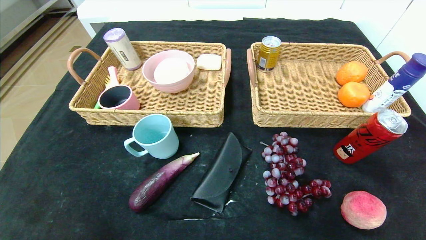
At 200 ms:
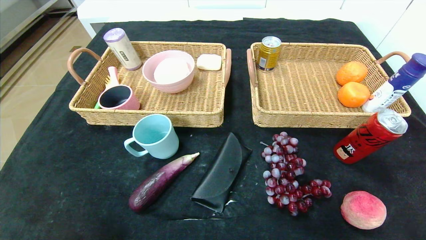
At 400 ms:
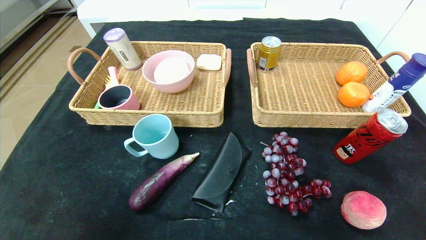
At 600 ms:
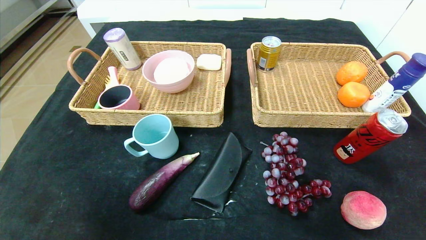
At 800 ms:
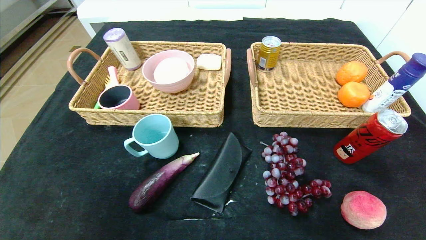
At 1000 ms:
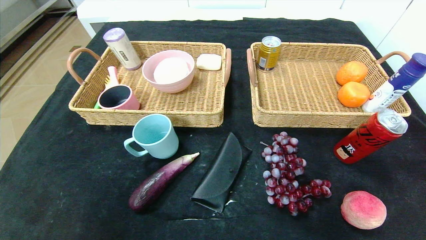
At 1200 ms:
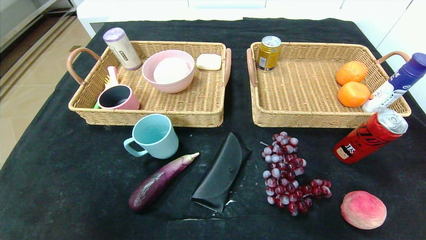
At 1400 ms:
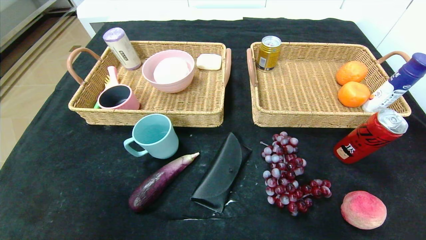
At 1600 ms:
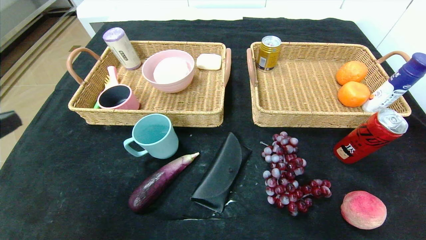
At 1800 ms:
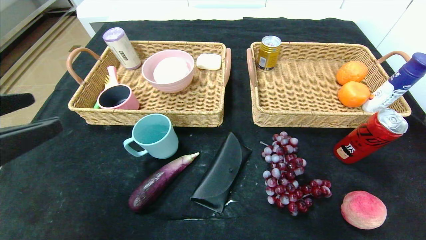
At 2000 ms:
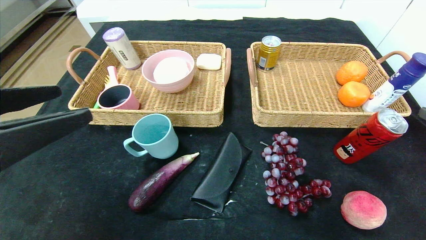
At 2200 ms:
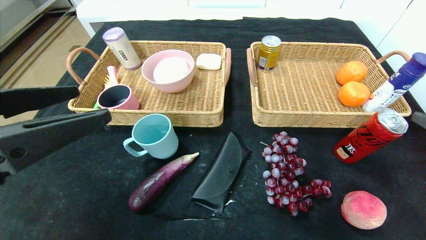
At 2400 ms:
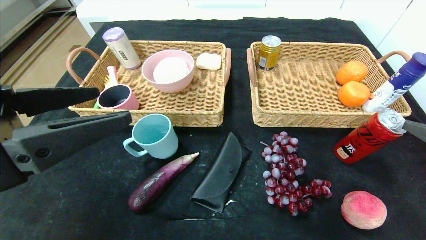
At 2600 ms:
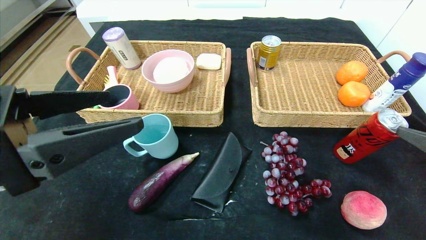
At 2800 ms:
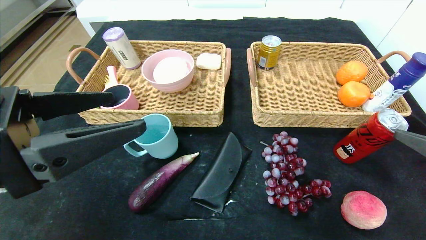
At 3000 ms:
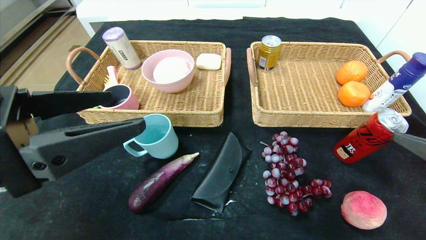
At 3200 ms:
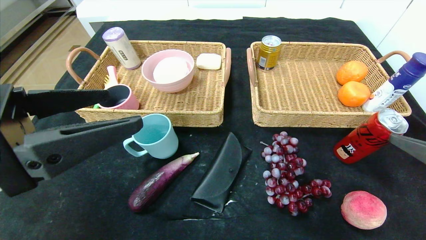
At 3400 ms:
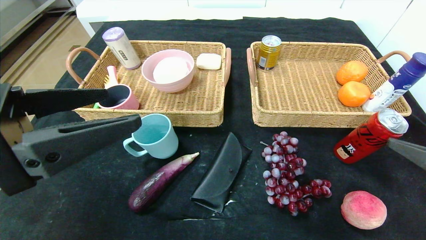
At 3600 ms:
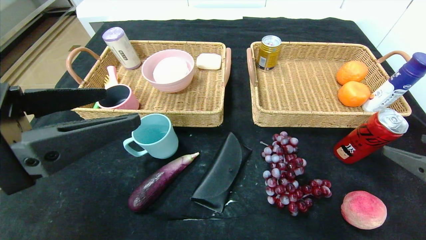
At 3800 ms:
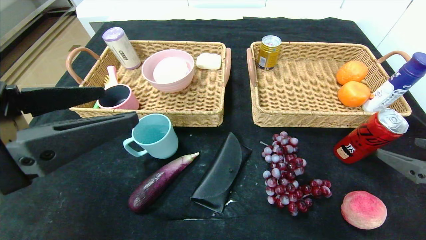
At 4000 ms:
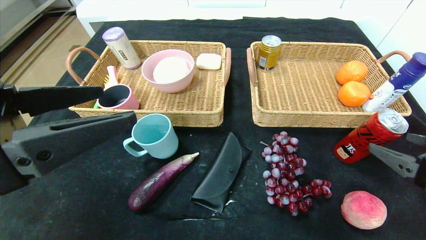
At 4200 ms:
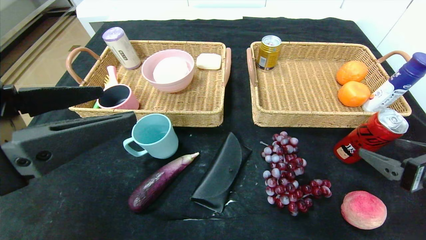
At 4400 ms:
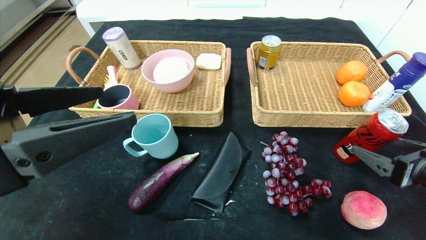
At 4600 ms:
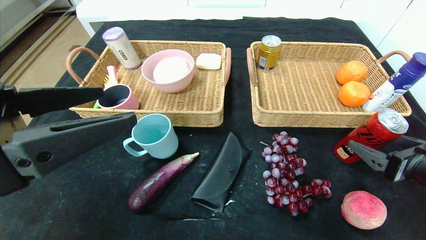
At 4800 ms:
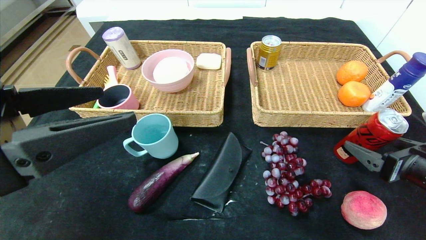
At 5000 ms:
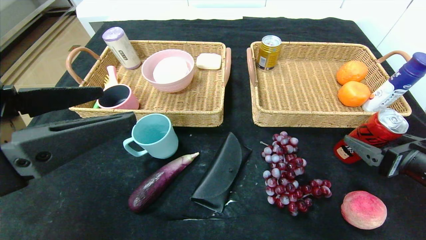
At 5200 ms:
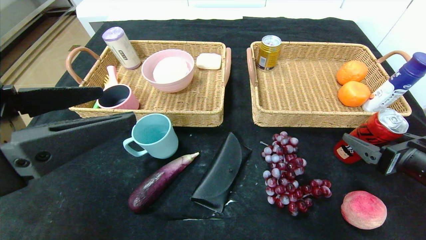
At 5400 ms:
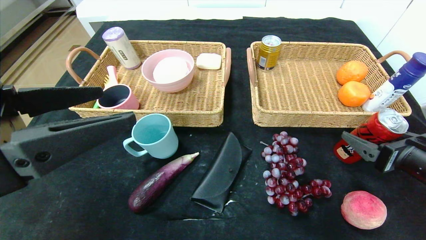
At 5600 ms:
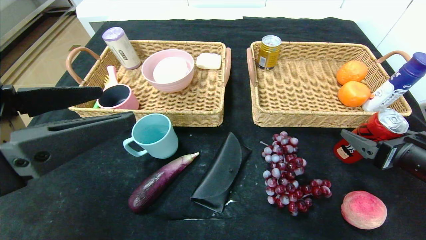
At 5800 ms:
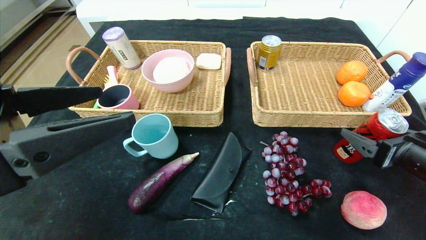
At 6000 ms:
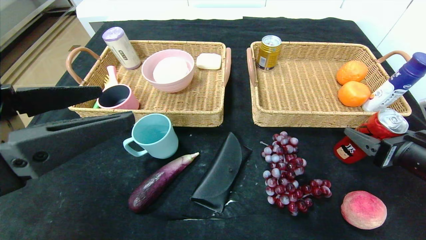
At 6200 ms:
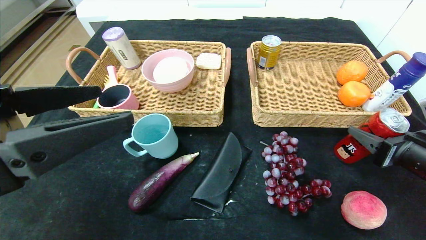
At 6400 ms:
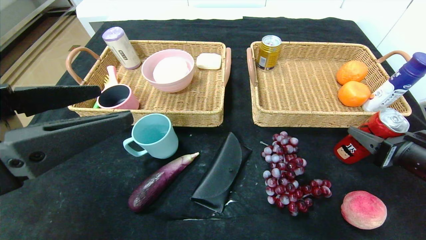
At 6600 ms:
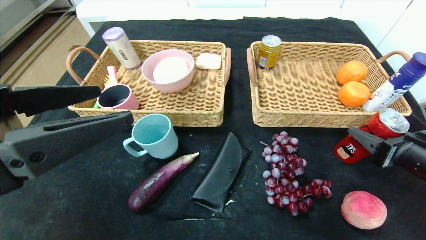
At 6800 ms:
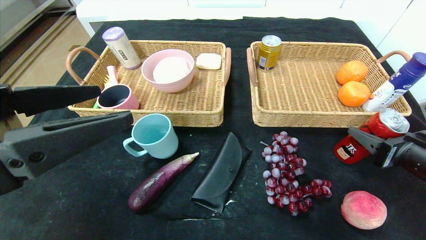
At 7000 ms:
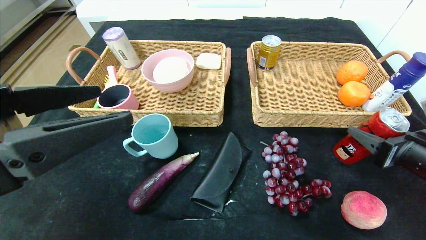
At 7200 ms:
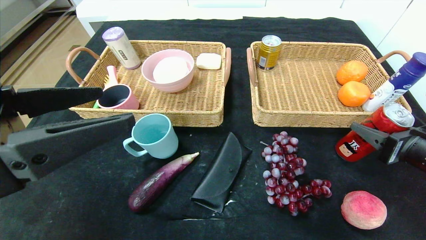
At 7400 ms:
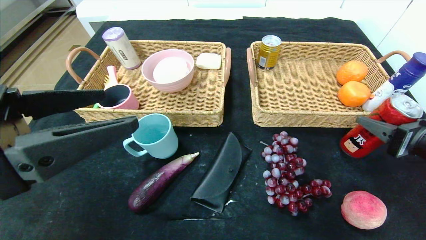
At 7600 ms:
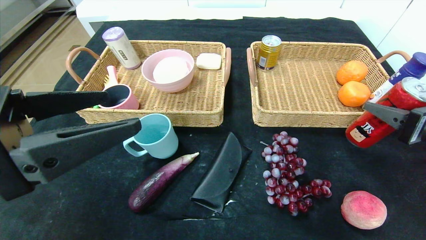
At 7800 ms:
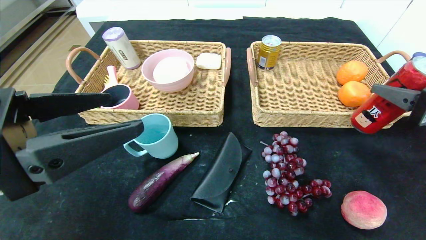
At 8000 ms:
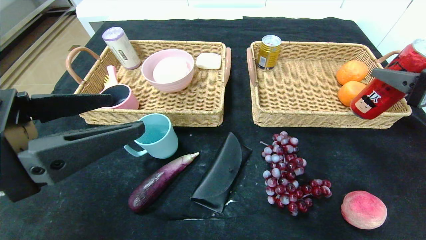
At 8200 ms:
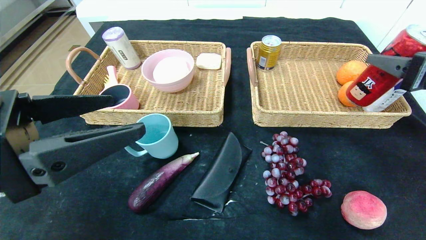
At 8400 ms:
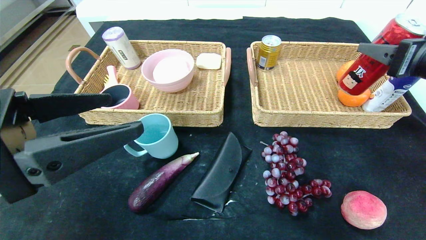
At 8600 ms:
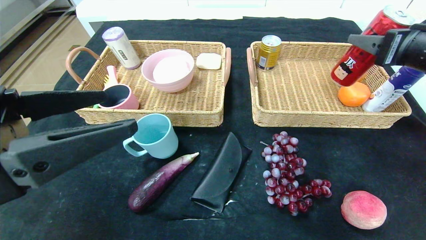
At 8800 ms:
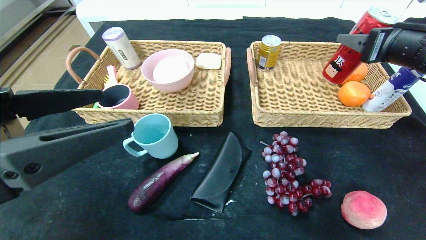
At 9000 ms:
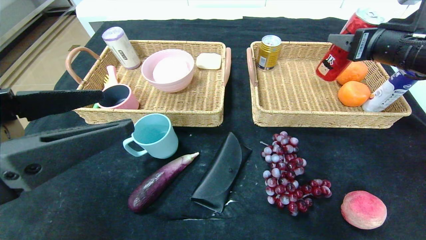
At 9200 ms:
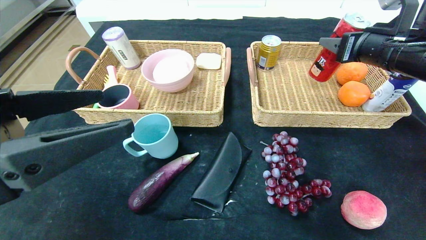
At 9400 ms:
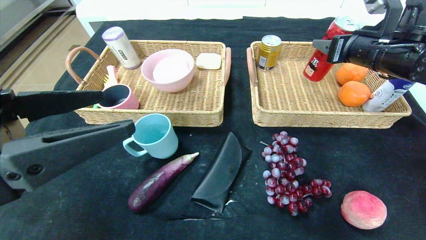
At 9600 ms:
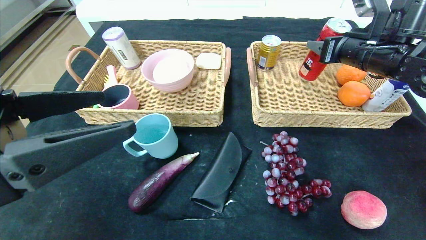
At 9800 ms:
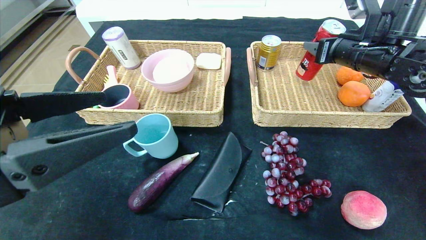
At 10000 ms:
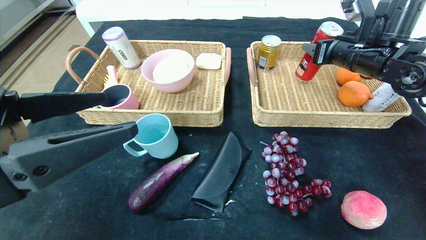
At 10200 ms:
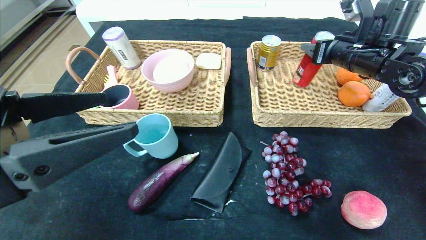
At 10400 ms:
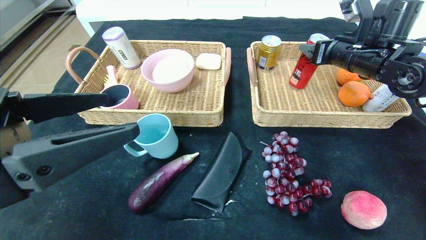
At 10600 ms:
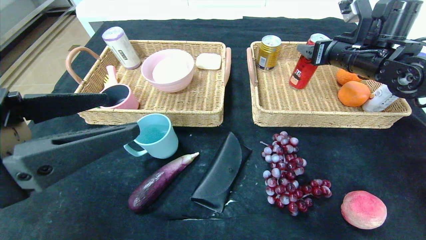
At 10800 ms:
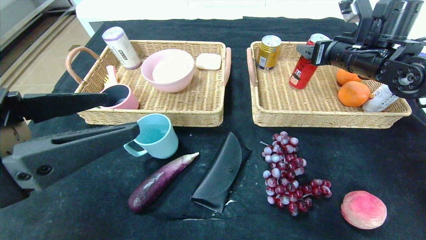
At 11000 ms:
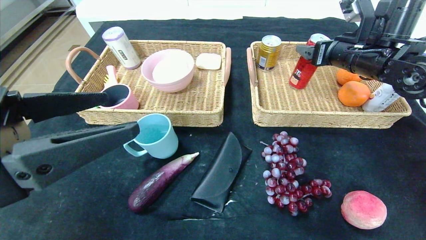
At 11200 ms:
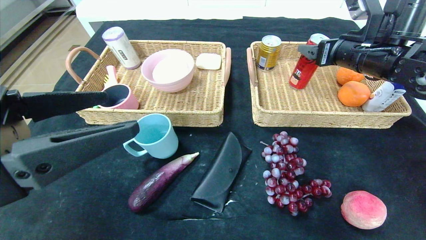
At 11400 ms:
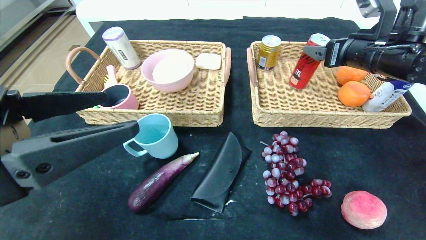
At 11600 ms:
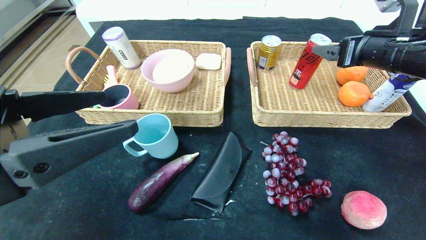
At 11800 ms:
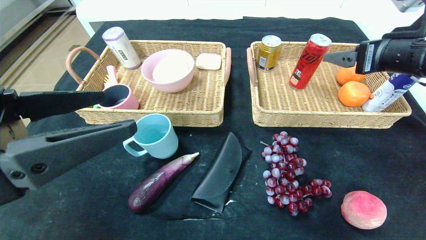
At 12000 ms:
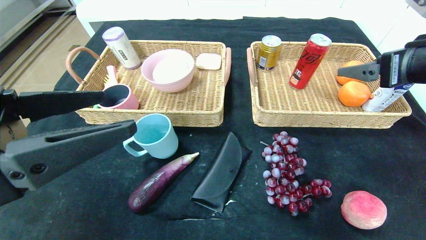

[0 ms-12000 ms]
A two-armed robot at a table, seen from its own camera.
Step, 0 ms to 10800 ms: Grasp the canned cola and put it in the right basket.
0 ms to 1600 ms: The right gripper is displaced upward and forward by approximately 25 cm; the left gripper moves upward, some 25 cm.
1600 ms to 3000 ms: The left gripper shifts roughly 10 cm forward and to the right.
3000 ms to 4400 ms: The right gripper travels downward and forward by some 10 cm.
4400 ms to 6000 ms: The grippers move only a little.
6000 ms to 7600 ms: The right gripper heads upward, covering approximately 5 cm.
7600 ms to 9000 ms: The right gripper is displaced forward and upward by roughly 15 cm.
9000 ms to 10400 ms: The right gripper is displaced forward by about 10 cm.
10400 ms to 12000 ms: The right gripper shifts approximately 15 cm backward.

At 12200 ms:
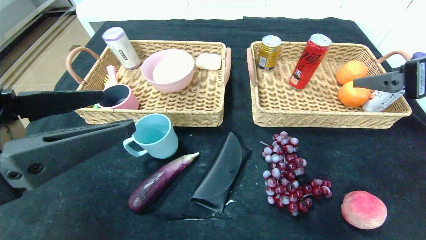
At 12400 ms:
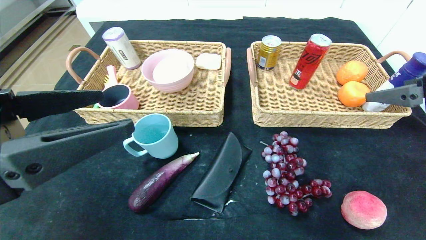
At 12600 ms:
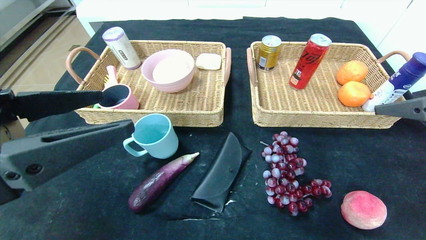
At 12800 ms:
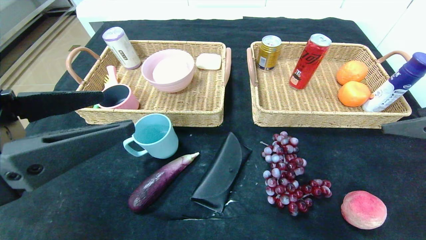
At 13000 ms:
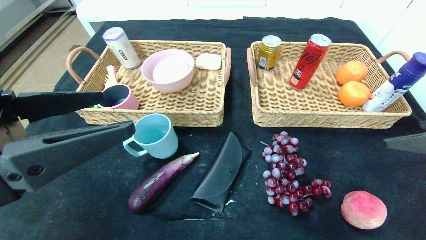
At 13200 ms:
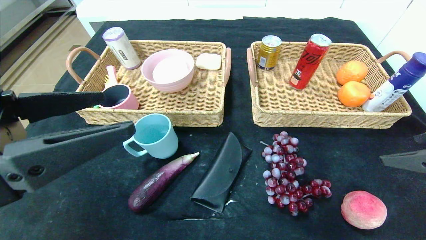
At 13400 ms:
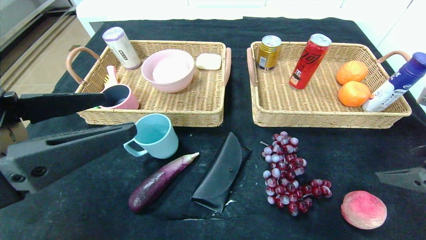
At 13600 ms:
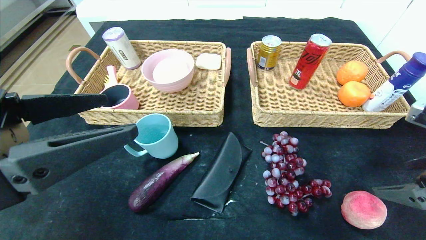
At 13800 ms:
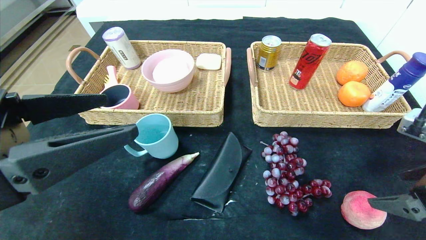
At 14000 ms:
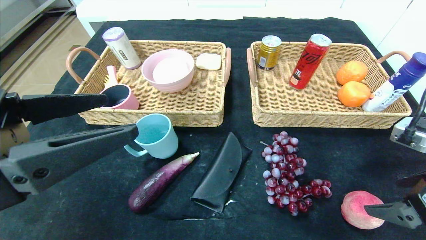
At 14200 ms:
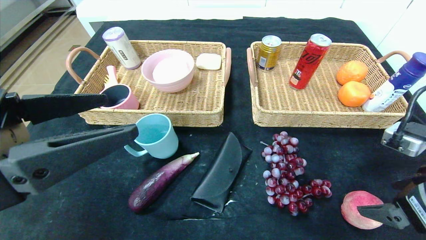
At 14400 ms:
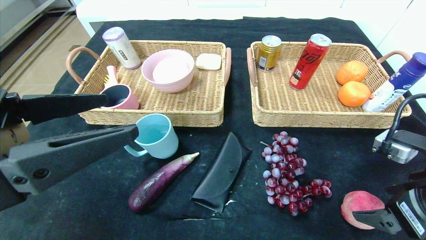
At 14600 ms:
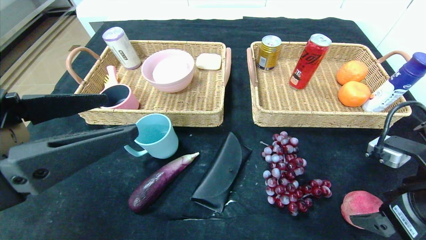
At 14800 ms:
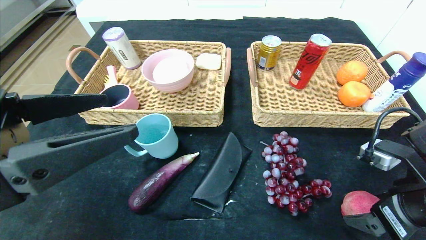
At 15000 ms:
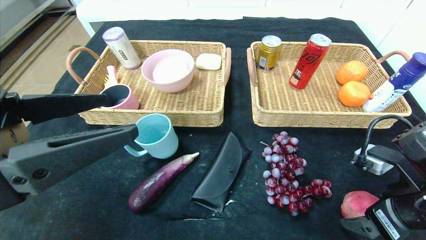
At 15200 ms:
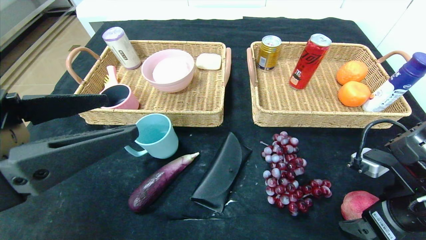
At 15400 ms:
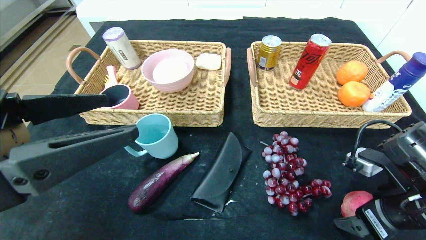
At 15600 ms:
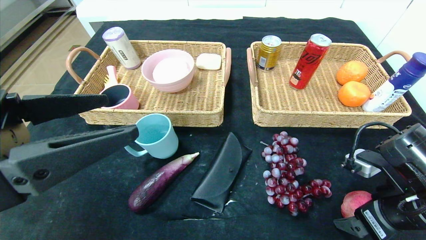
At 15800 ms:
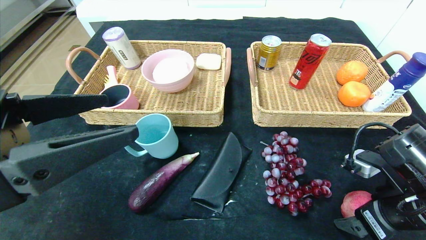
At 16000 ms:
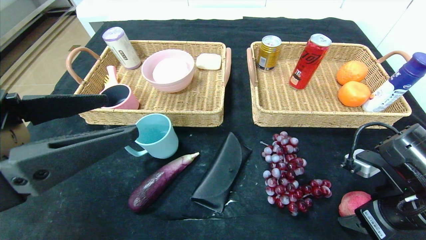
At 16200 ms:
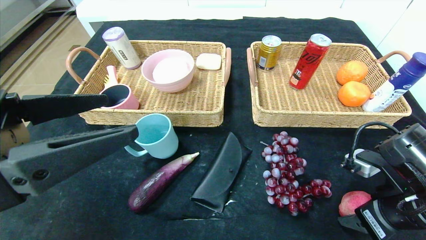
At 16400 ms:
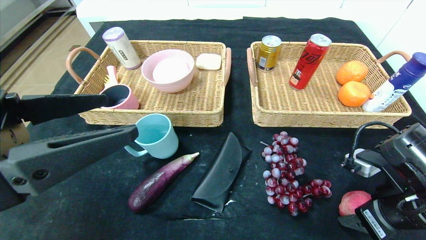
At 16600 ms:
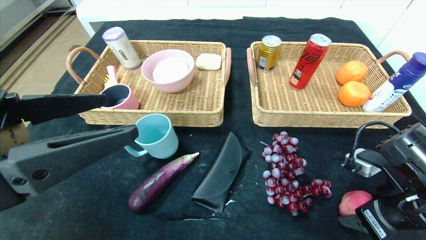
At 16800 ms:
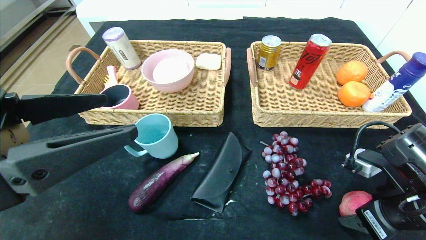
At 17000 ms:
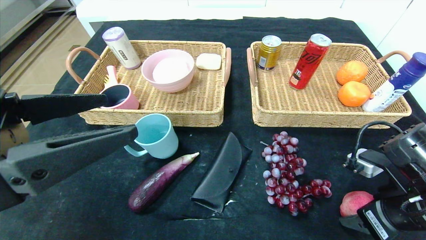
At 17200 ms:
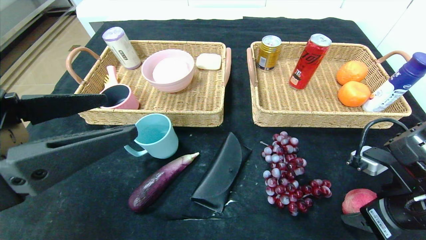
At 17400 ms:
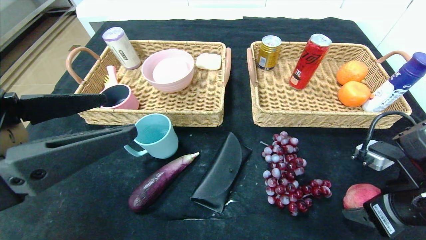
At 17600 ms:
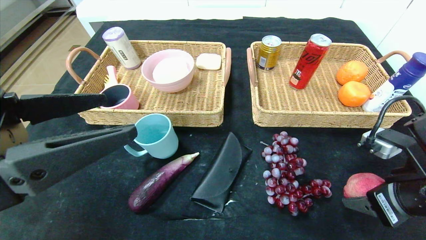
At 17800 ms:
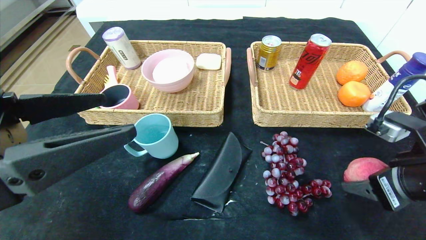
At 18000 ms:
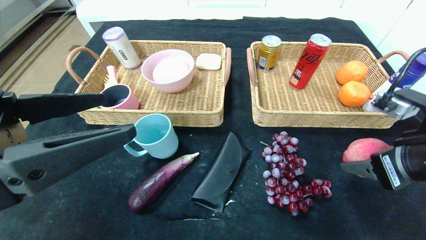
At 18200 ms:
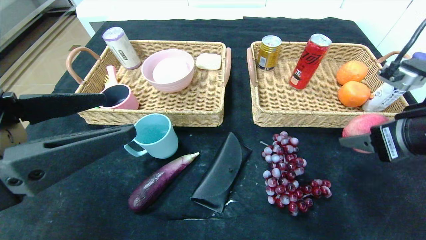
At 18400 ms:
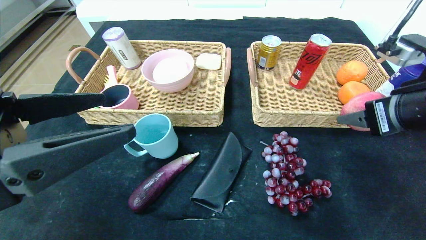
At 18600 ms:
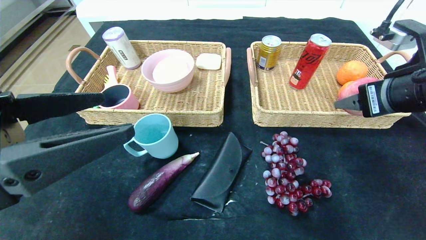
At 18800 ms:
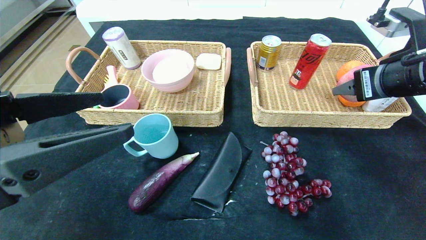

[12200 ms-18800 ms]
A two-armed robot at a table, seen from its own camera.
12200 ms to 13800 ms: The right gripper goes approximately 10 cm downward and backward.
13800 ms to 15400 ms: The right gripper goes approximately 5 cm downward.
15400 ms to 17200 ms: Both grippers stay about where they are.
17200 ms to 18800 ms: The right gripper travels upward and forward by about 15 cm.
